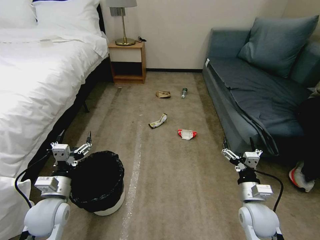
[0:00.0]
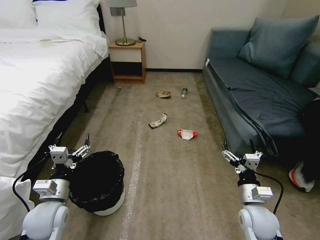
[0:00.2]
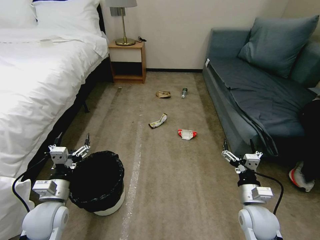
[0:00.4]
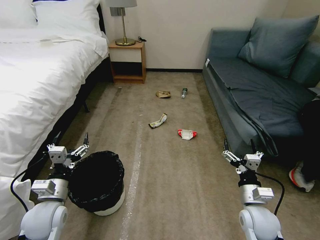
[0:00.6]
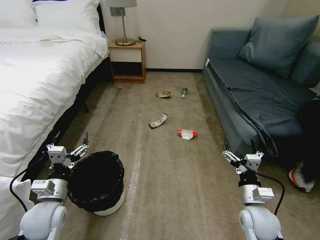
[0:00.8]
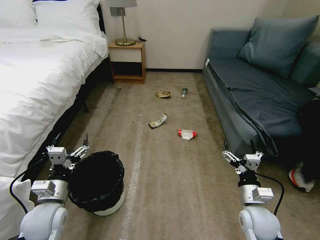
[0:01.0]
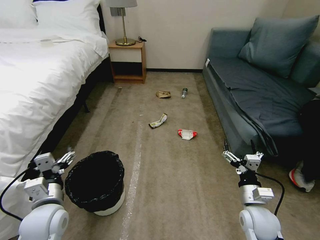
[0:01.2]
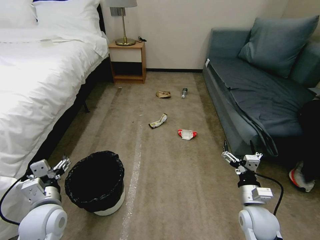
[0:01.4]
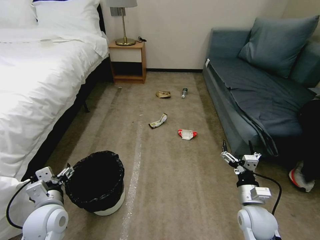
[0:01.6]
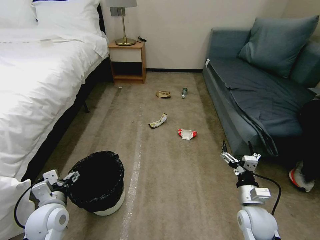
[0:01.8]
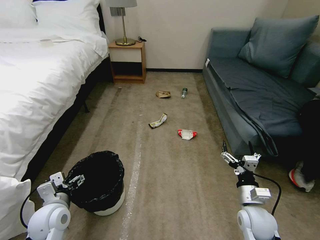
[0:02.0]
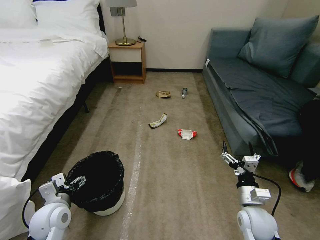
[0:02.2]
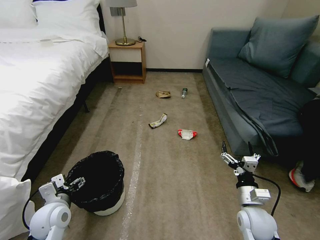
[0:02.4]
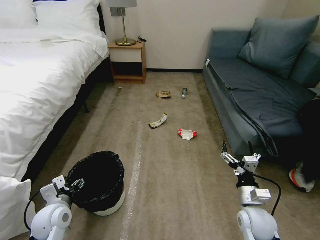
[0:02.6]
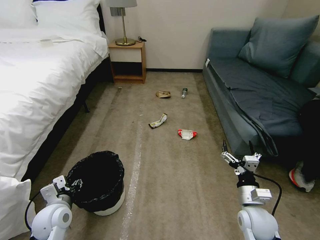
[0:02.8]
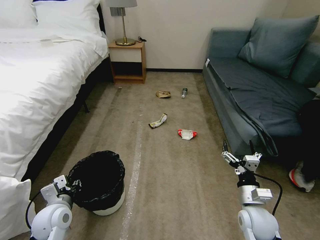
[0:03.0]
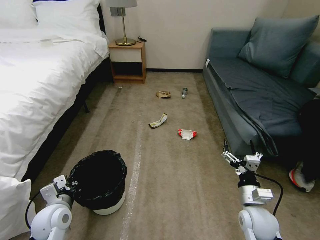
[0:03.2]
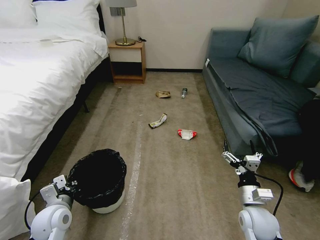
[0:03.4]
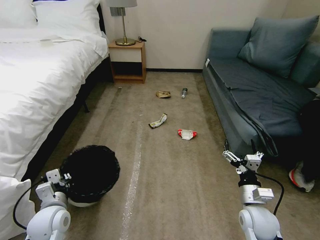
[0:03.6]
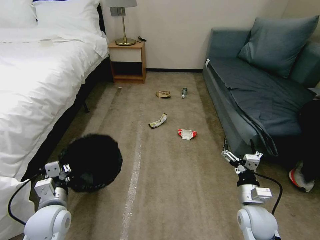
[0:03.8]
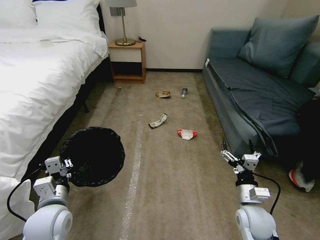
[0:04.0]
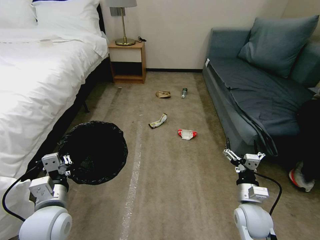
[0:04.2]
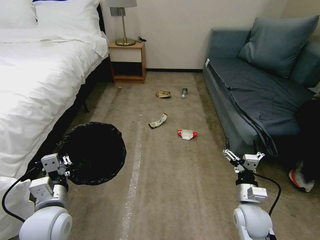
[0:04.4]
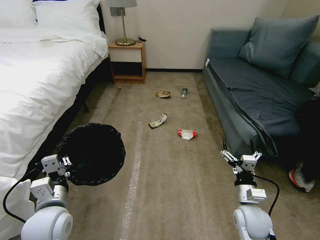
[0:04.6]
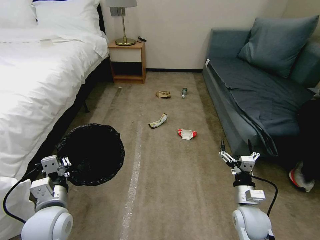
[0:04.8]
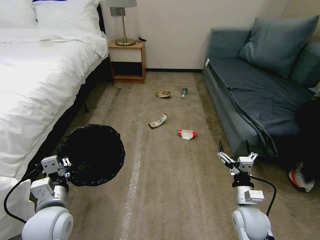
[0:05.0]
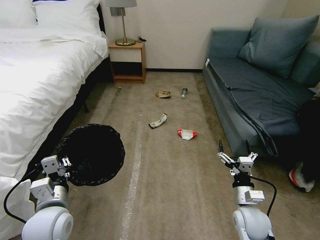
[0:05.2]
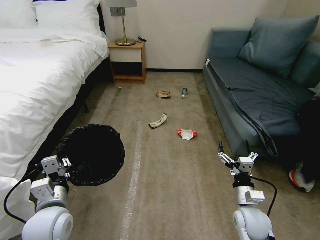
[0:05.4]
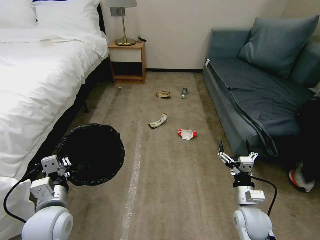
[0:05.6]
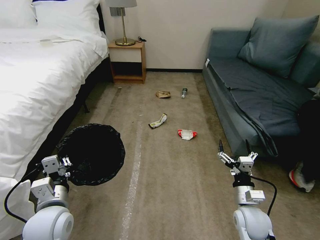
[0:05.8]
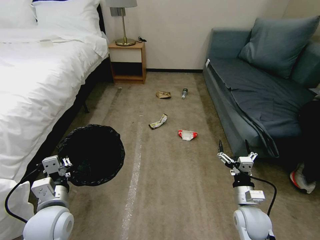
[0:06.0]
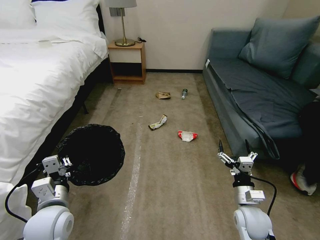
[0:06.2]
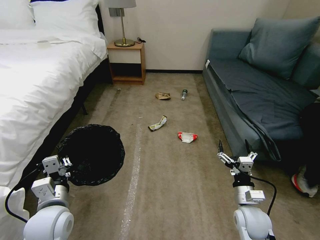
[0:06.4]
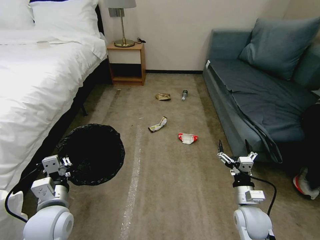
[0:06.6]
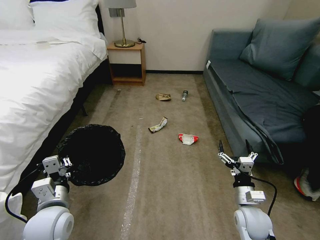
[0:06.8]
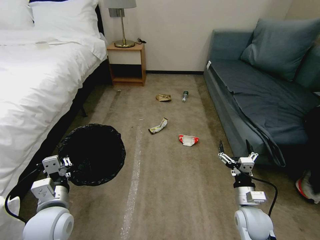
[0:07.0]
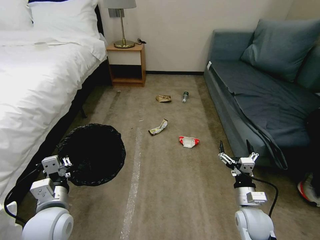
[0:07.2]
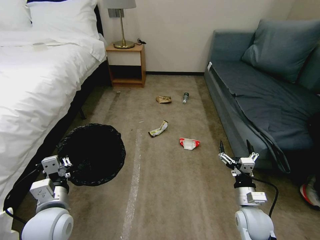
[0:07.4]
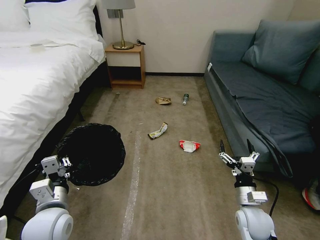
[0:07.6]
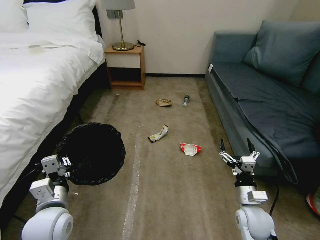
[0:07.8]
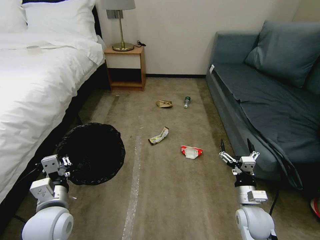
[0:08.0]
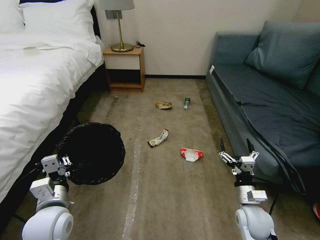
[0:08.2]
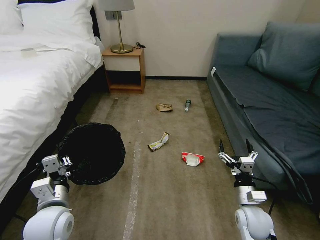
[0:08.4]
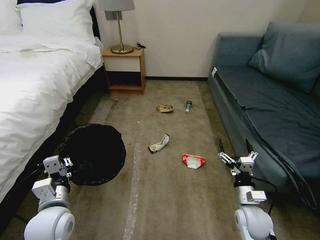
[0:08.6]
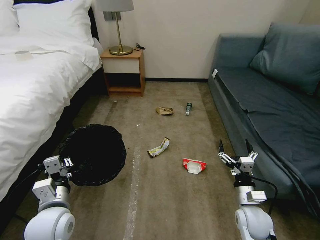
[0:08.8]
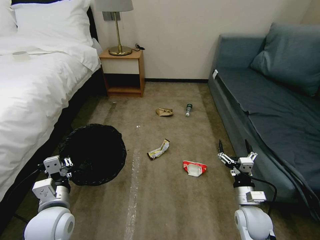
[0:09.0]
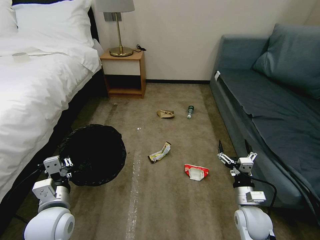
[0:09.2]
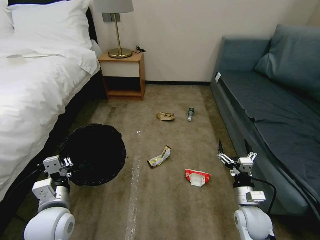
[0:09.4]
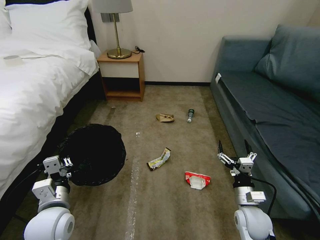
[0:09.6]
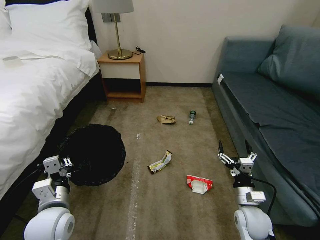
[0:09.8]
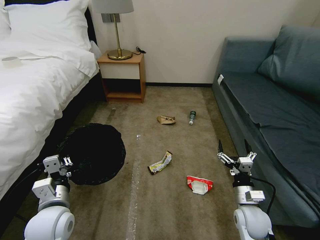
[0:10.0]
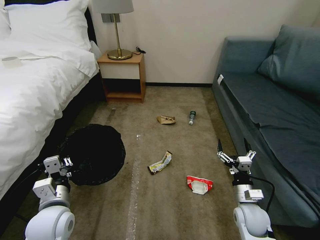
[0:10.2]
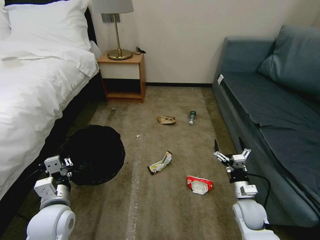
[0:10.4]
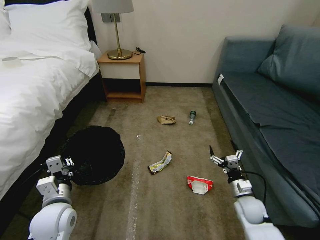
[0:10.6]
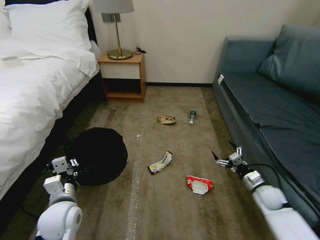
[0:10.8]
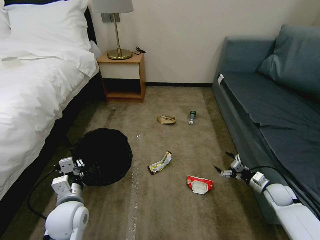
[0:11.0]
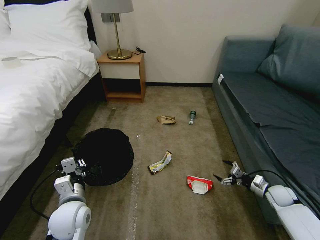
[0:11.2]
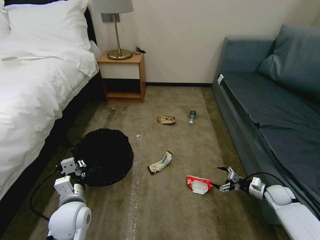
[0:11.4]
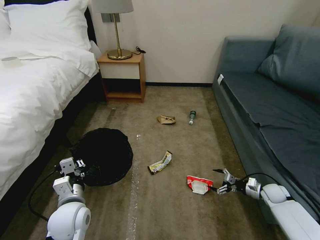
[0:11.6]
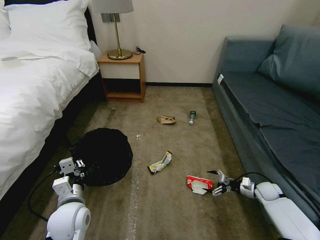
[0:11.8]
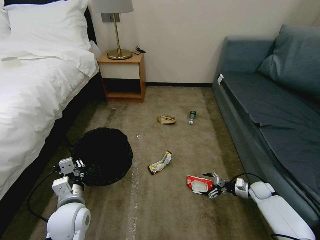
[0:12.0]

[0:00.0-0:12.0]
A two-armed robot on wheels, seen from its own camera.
Task of the whole recording: Pick up the trash bin, then pick up the garbage on the floor and place it into the trash bin.
0:01.6 to 0:03.0: The left gripper closes up.
0:03.0 to 0:04.4: The left gripper shifts roughly 10 cm upward.
0:04.4 to 0:06.0: There are only small adjustments of the grippers.
0:06.0 to 0:07.6: The two grippers keep their place.
0:09.0 to 0:10.4: There are only small adjustments of the grippers.
0:10.4 to 0:12.0: The right gripper goes roughly 20 cm to the right, forward and downward.

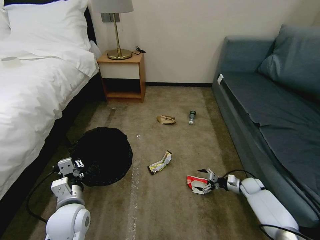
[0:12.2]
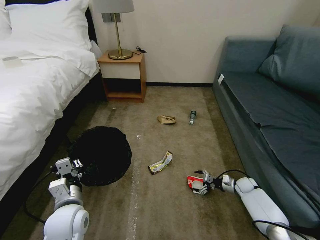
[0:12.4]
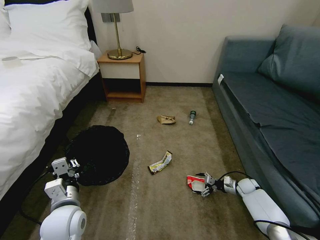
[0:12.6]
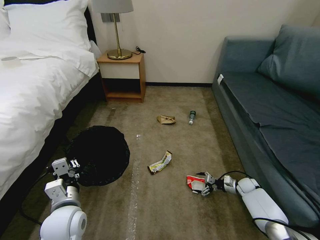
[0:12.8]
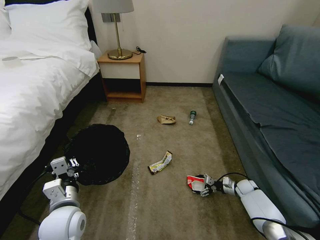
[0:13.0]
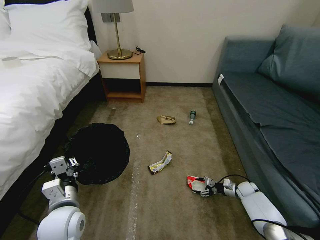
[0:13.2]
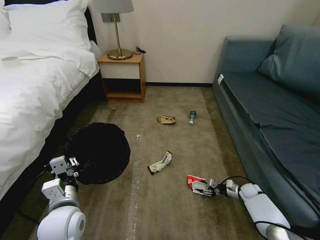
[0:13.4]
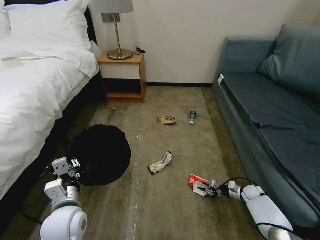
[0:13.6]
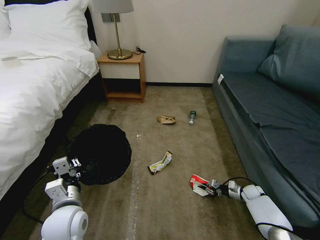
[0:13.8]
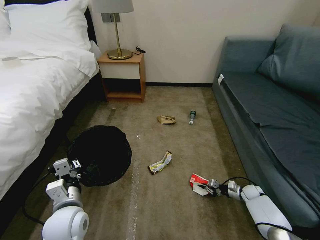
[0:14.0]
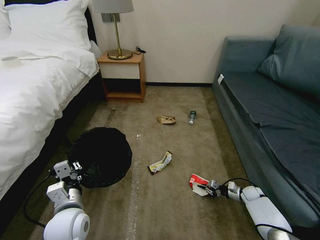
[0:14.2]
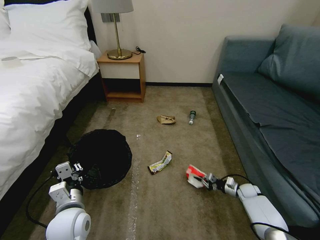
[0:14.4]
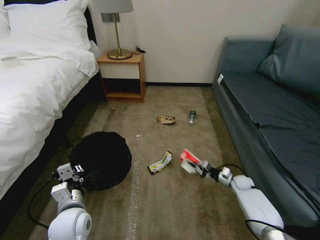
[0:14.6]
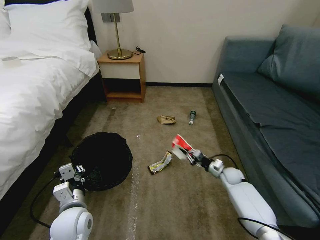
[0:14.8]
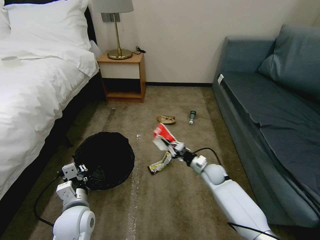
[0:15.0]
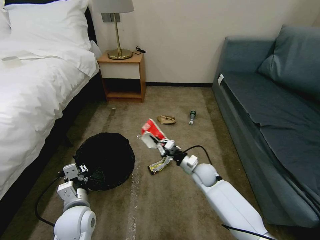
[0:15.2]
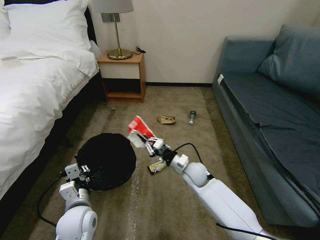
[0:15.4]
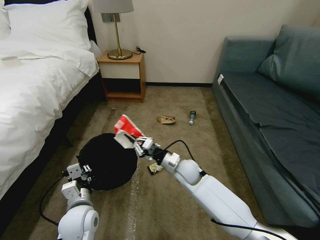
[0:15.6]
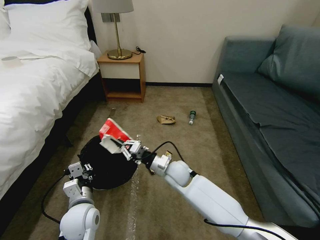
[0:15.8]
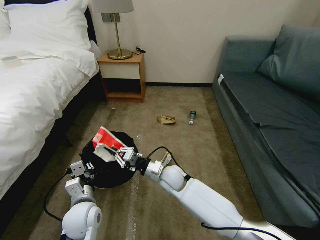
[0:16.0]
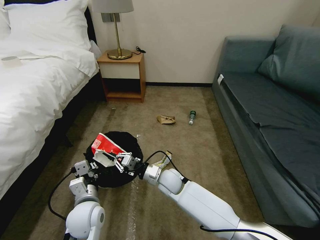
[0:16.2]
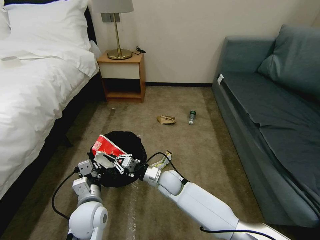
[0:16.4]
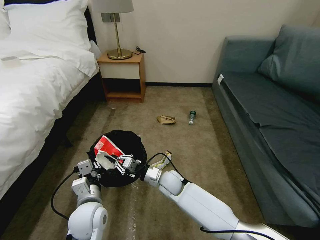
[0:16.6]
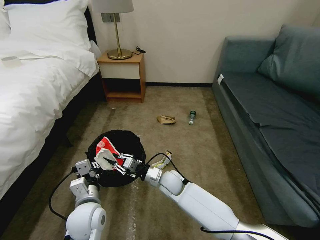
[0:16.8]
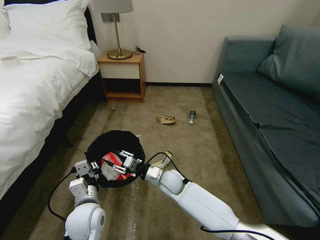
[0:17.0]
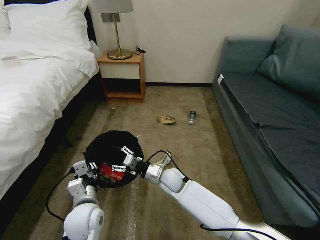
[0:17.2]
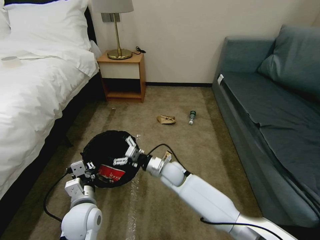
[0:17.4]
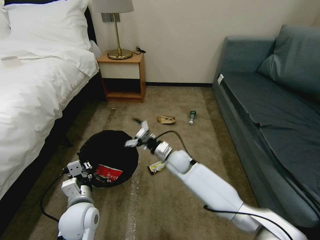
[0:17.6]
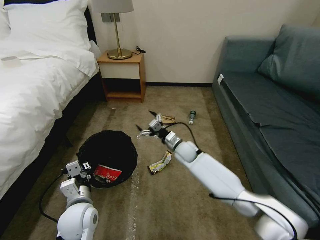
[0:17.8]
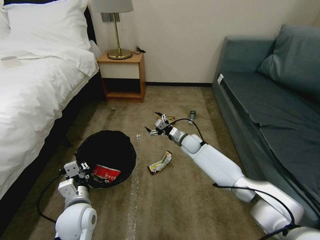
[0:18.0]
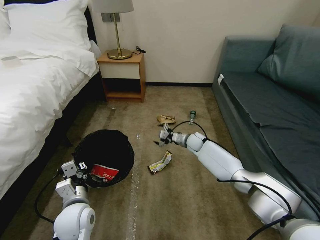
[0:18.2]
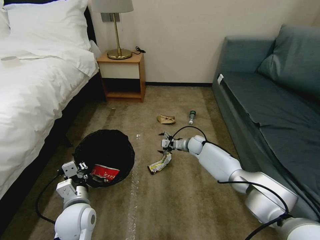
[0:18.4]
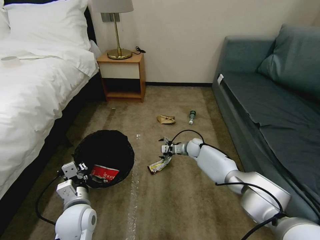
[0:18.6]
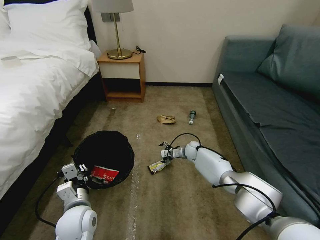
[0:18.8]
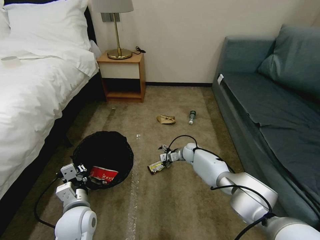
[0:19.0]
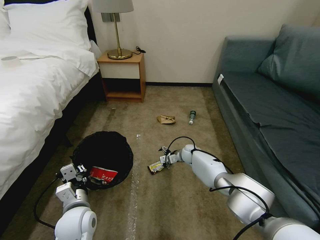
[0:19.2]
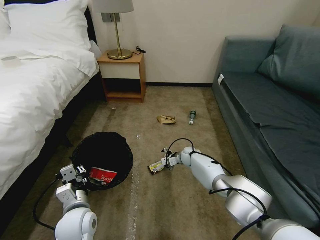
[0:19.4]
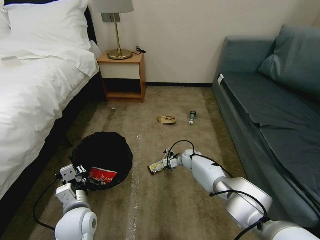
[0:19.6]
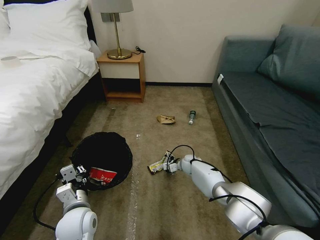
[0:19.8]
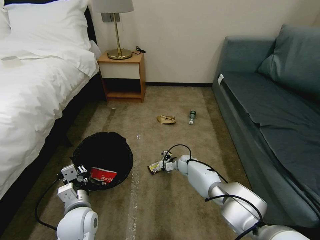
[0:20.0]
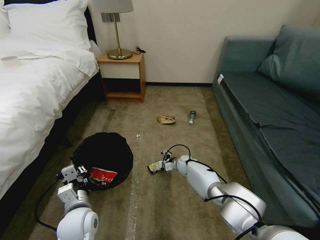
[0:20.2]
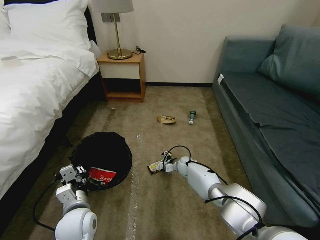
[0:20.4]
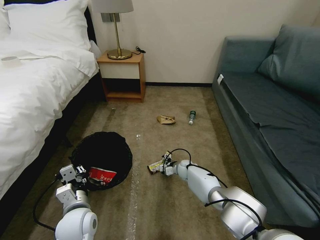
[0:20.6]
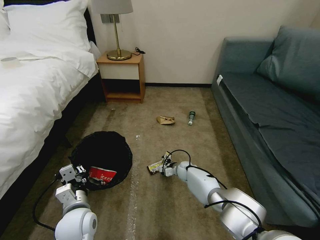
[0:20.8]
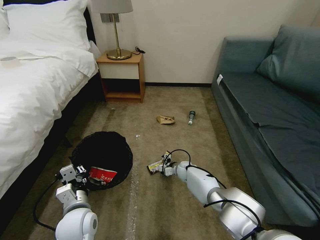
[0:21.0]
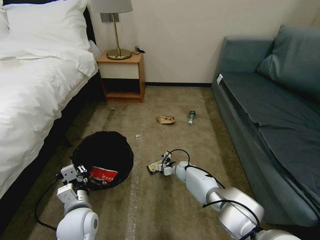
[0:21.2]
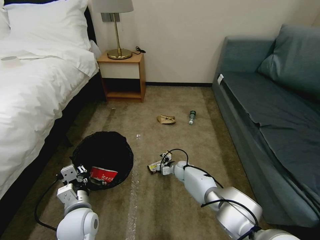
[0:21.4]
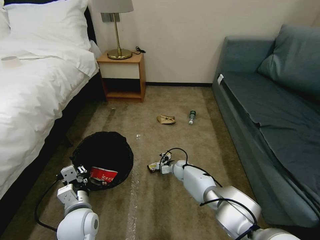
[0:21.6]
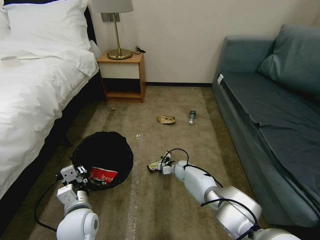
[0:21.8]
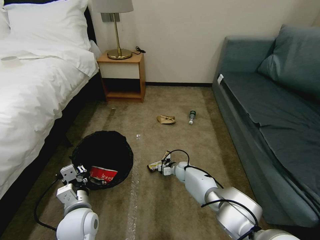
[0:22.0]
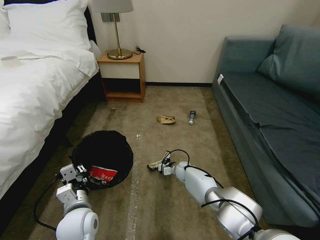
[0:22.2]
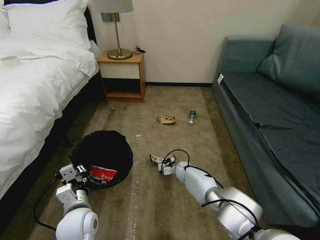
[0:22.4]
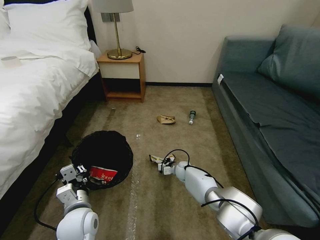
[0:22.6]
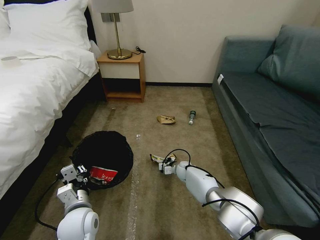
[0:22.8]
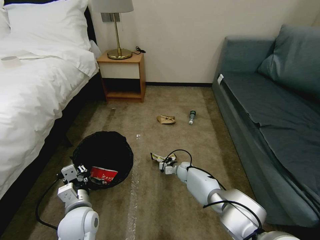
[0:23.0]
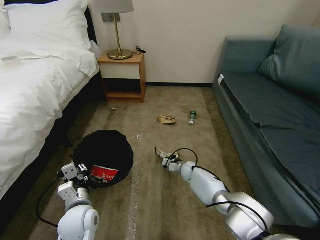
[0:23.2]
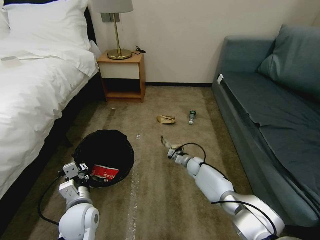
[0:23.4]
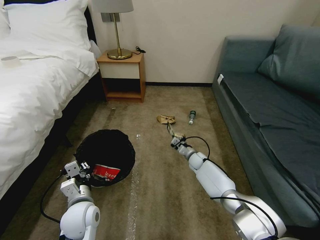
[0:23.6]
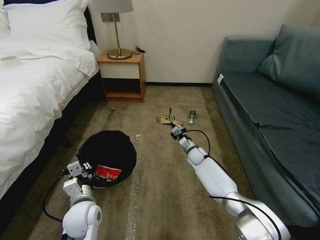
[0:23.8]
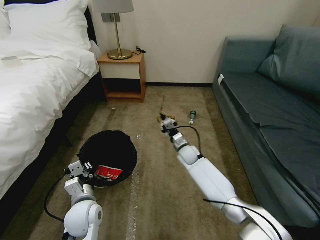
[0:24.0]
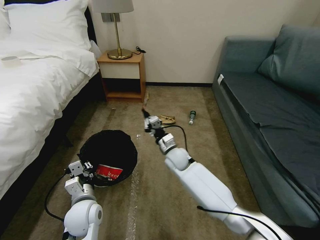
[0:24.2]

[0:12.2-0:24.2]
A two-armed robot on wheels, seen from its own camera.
Task of the whole recording: Pick up the trash bin, then pick up the garbage on the floor and place it into the trash bin.
0:12.2 to 0:13.8: The right gripper closes.
0:13.8 to 0:15.2: The right gripper heads to the left and upward, covering roughly 30 cm.
0:15.2 to 0:16.6: The right gripper is displaced to the left by approximately 15 cm.
0:16.6 to 0:18.2: The right gripper shifts roughly 25 cm forward and to the right, and opens up.
0:18.2 to 0:19.8: The right gripper goes roughly 15 cm downward.
0:19.8 to 0:21.2: The grippers make only small movements.
0:21.2 to 0:22.6: The right gripper closes its fingers.
0:22.6 to 0:24.2: The right gripper travels upward by about 15 cm.
